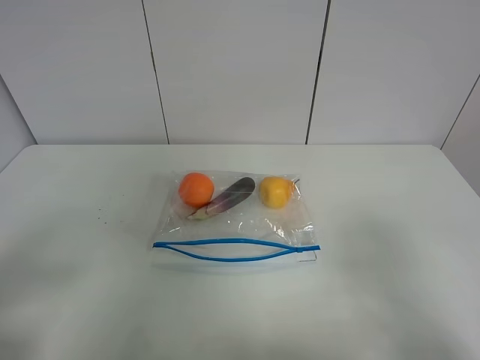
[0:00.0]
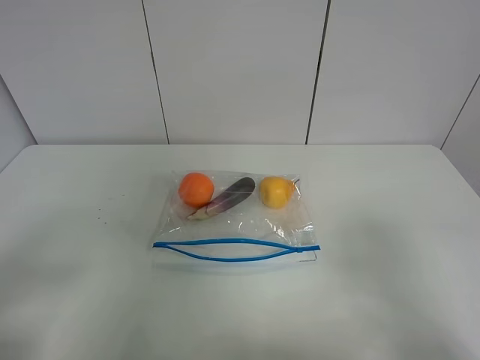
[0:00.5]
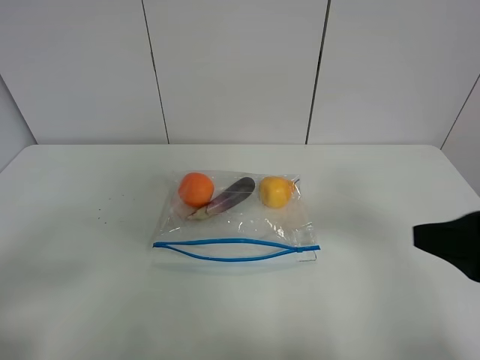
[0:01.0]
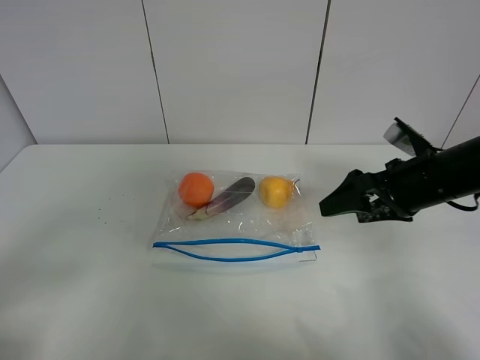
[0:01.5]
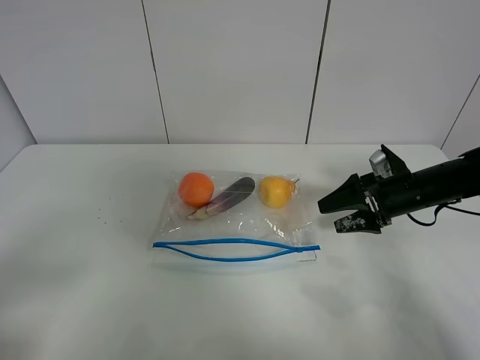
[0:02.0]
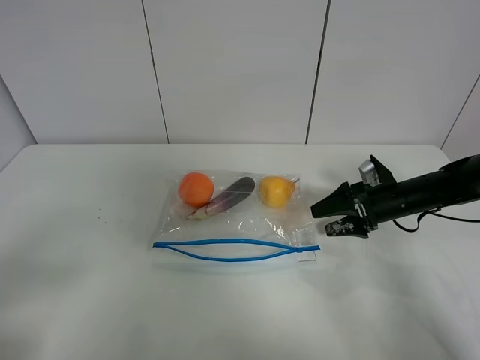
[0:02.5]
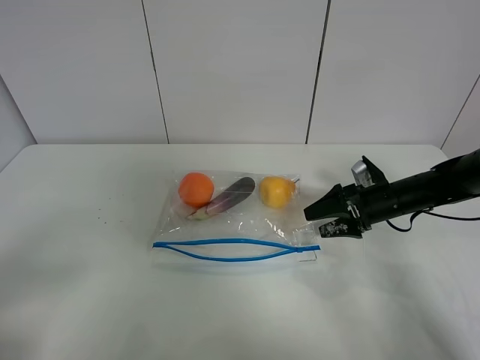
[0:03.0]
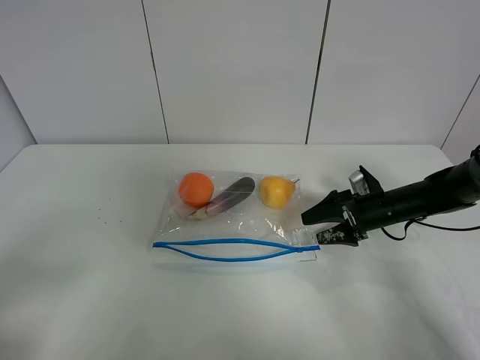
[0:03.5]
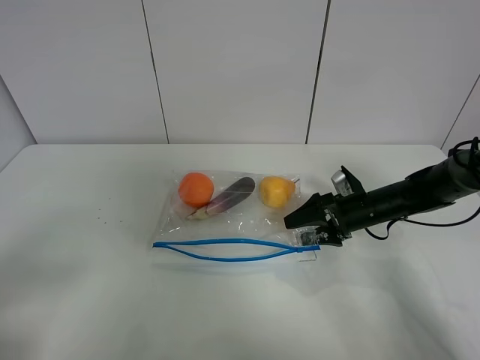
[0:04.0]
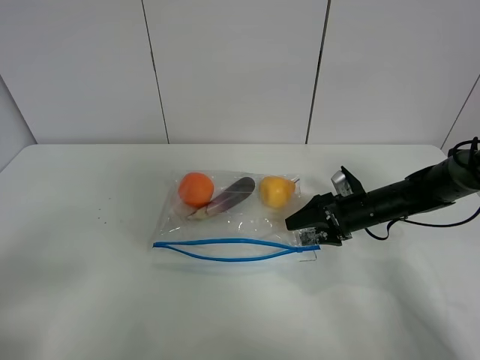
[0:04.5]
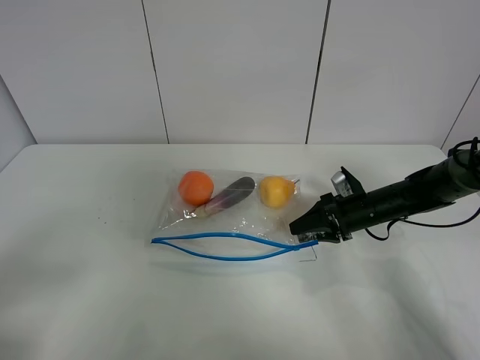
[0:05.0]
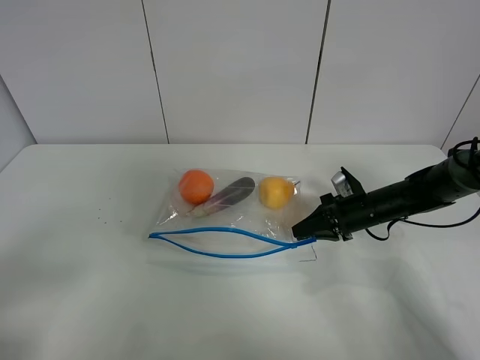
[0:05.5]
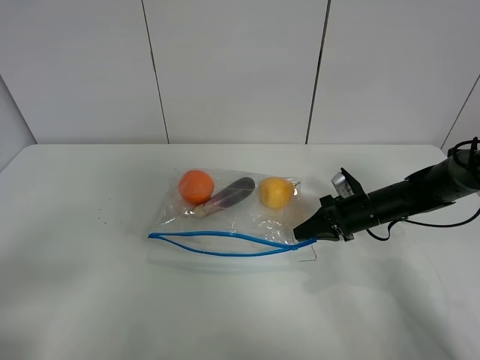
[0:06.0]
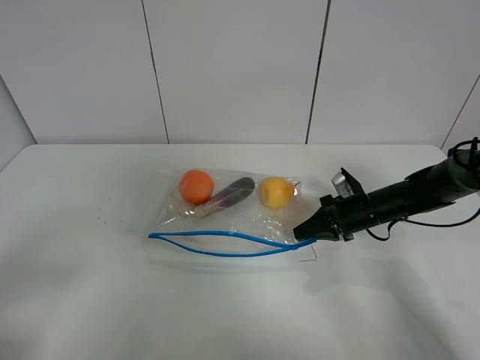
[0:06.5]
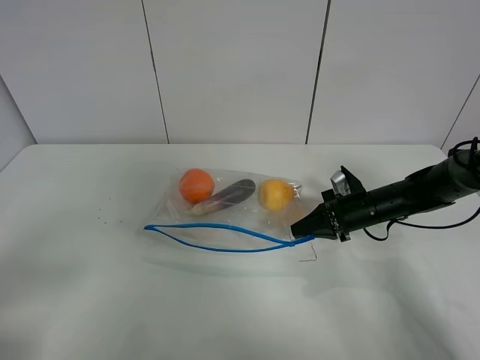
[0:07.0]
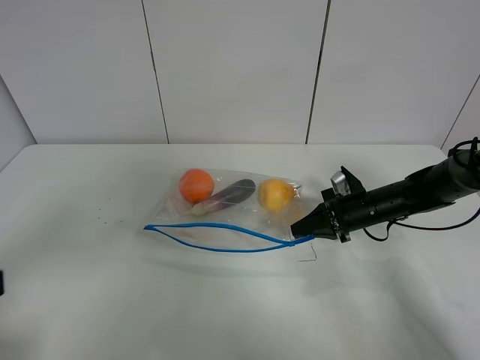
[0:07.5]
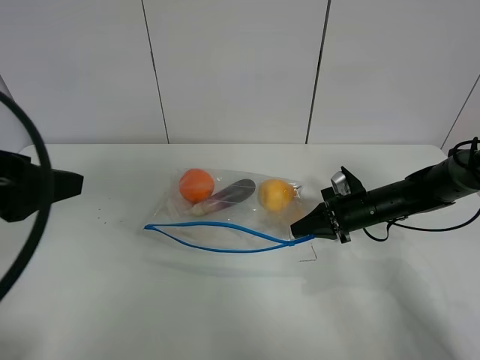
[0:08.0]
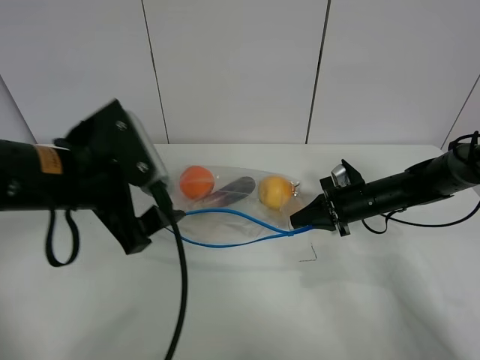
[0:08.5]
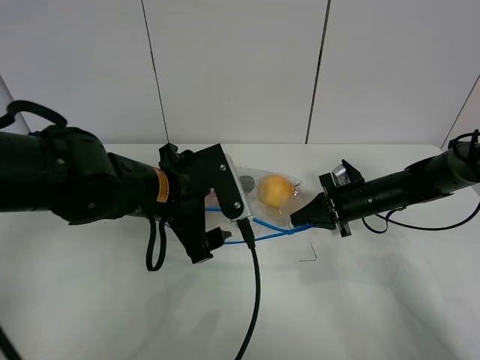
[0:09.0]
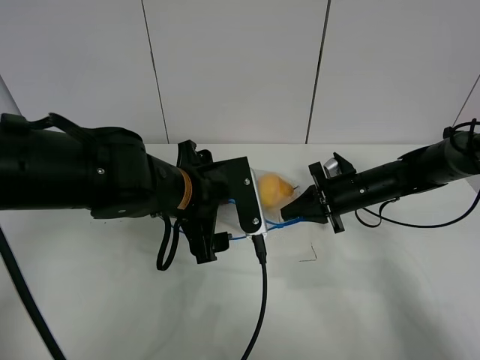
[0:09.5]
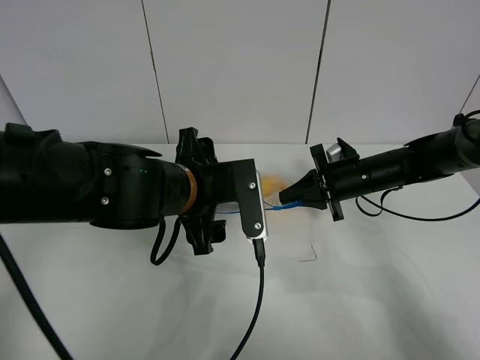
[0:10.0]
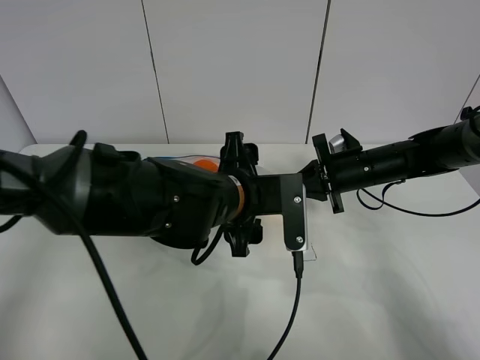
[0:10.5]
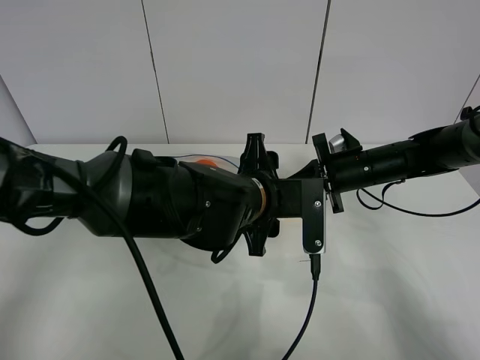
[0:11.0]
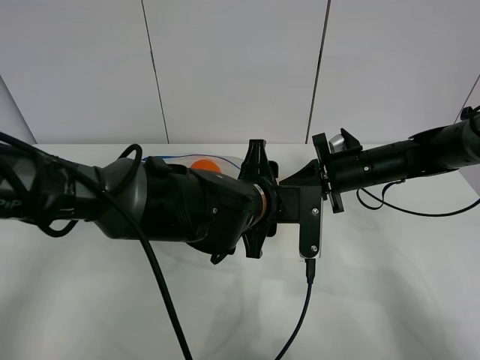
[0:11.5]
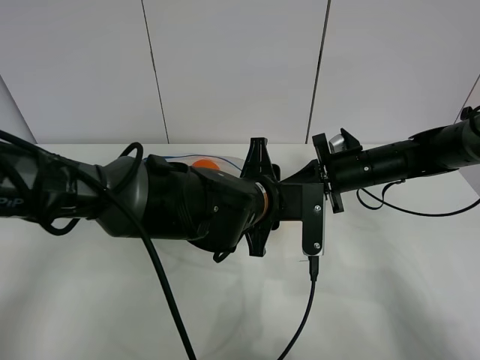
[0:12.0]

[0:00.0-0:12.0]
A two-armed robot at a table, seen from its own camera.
Step, 0:00.0 to 0:05.5: Grasp the fruit bag with right gripper.
Step, 0:06.0 to 0:10.0: Lift the fruit bag with your right gripper.
0:00.0 to 0:02.0: The right gripper heads forward and downward, covering approximately 35 cm.
0:02.0 to 0:04.0: The right gripper heads downward, covering roughly 5 cm.
0:04.0 to 0:06.0: The right gripper closes.
0:06.0 to 0:08.0: The left gripper goes some 15 cm forward.
0:08.0 to 0:10.0: The right gripper heads upward, covering about 5 cm; the left gripper moves to the right and downward, about 25 cm.
0:10.0 to 0:12.0: The left gripper heads to the right, covering roughly 5 cm, and closes.

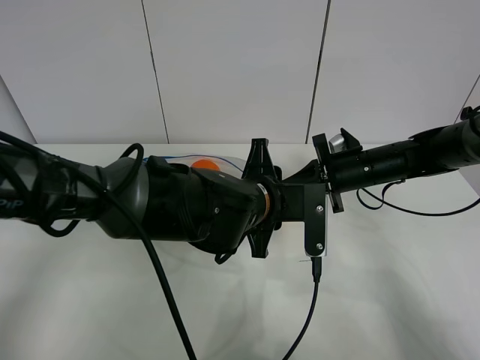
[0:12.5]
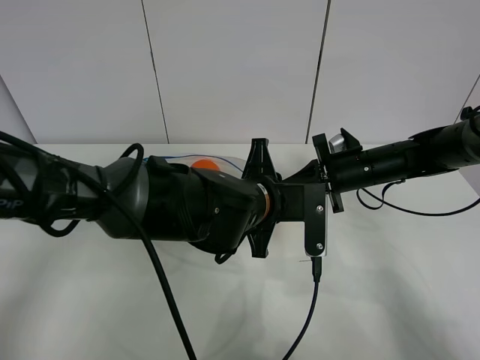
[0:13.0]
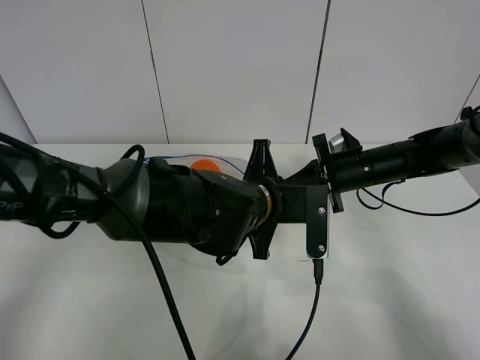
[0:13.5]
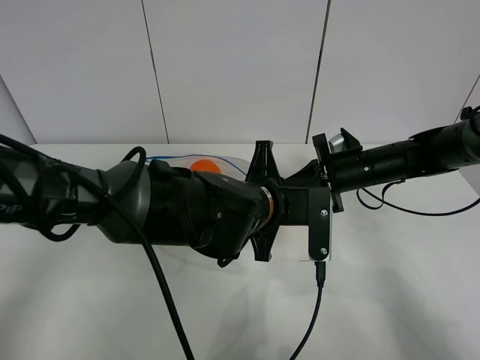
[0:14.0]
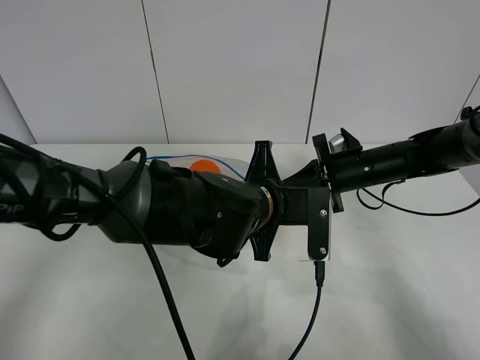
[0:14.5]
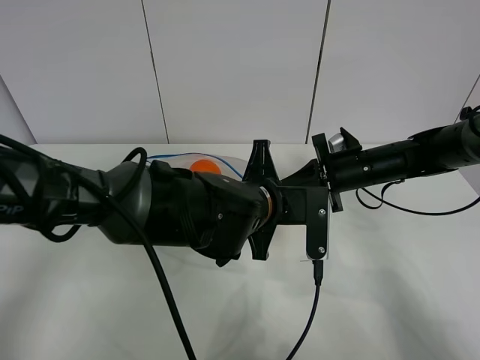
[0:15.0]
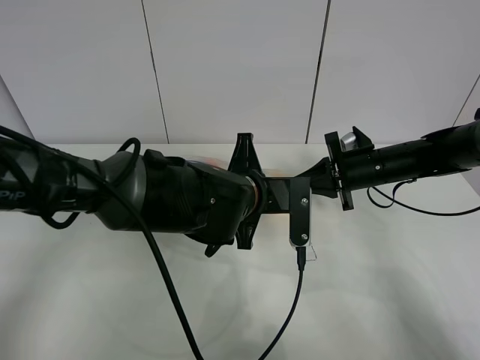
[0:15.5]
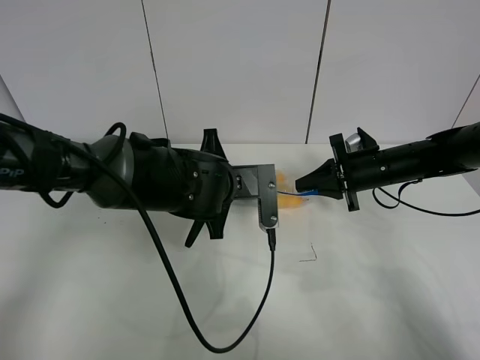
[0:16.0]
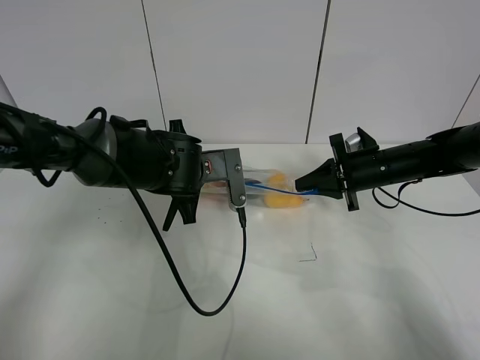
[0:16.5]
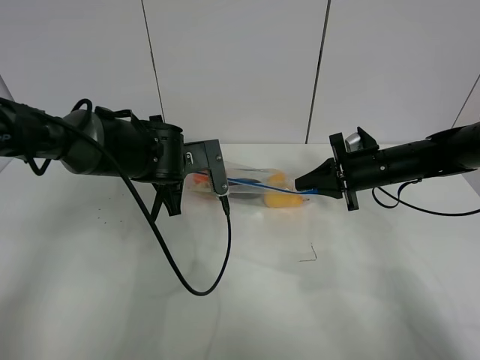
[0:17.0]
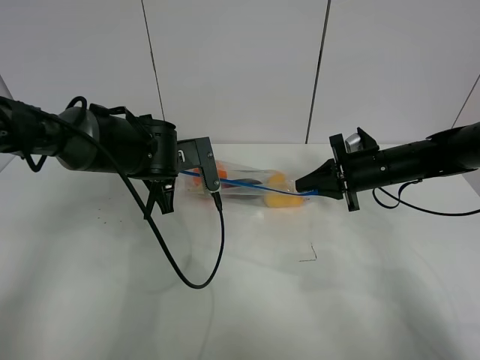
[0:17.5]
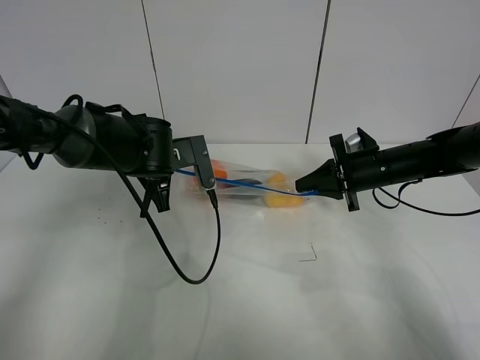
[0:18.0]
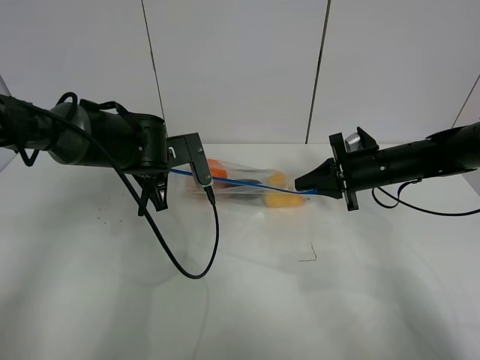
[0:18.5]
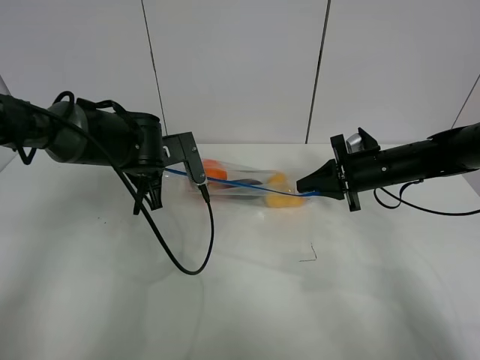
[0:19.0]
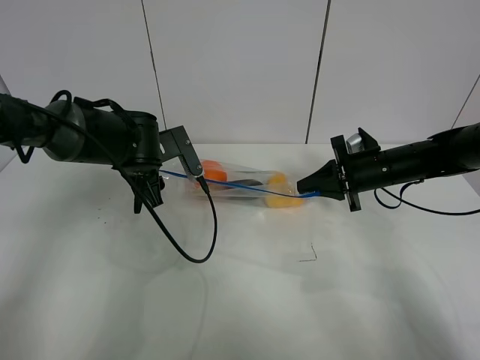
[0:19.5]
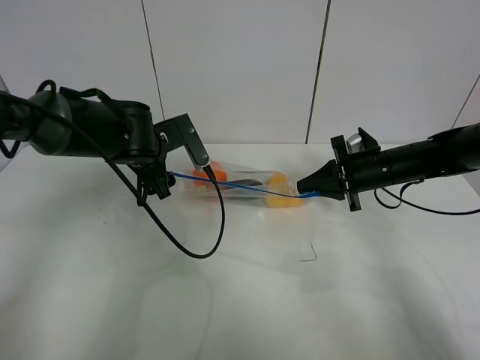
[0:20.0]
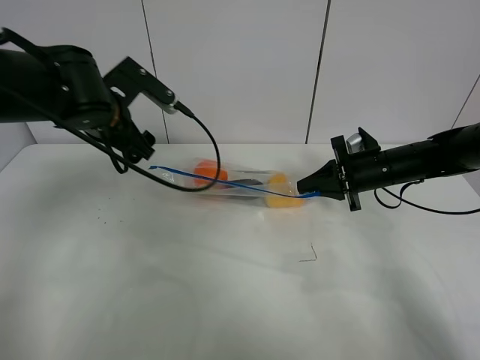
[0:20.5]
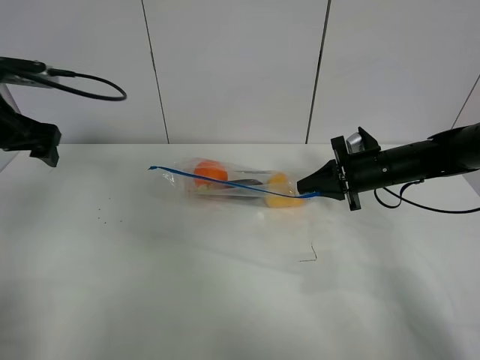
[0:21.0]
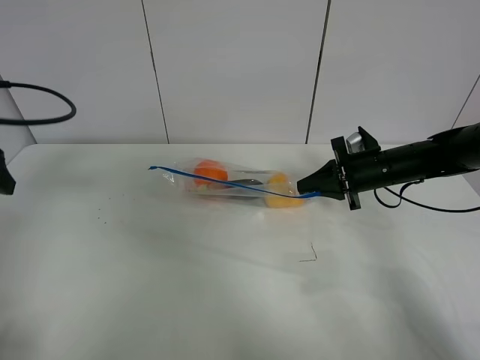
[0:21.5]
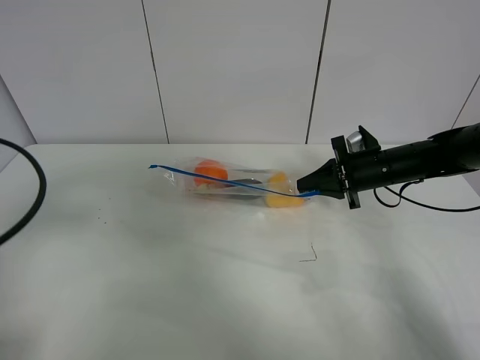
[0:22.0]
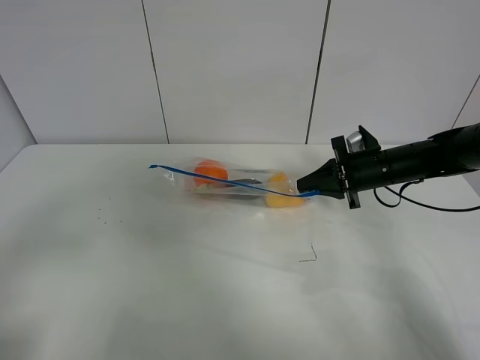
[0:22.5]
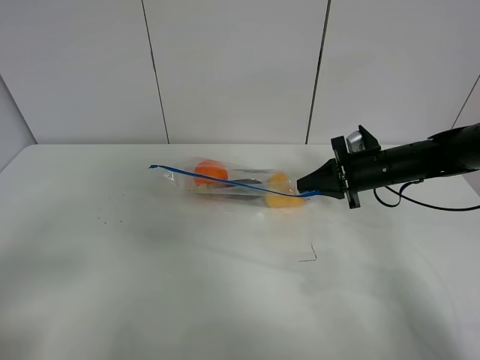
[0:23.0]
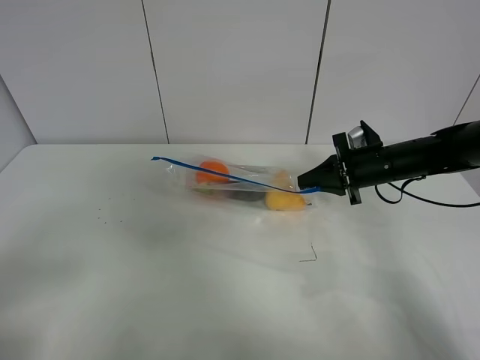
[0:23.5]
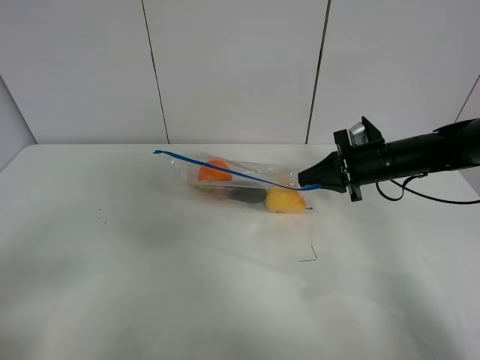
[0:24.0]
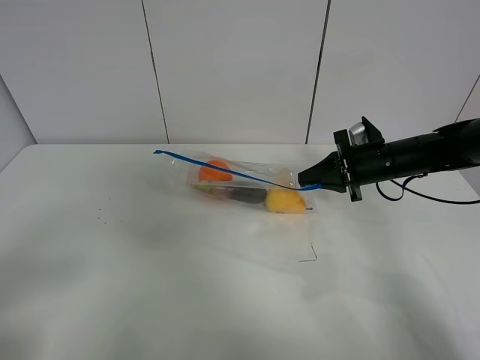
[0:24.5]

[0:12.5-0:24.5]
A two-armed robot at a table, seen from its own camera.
Step, 0:12.5 to 0:20.0: Pull the fruit bag with left gripper.
0:12.5 to 0:14.5: The left gripper closes up.
0:14.5 to 0:16.5: The left gripper heads to the left and forward, covering about 15 cm.
0:16.5 to 0:18.5: The left gripper moves to the left, roughly 5 cm.
0:18.5 to 0:20.5: The left gripper travels upward and to the left by about 10 cm, and opens its fingers.
0:20.5 to 0:22.5: The left gripper heads backward and to the left, covering approximately 30 cm.
0:22.5 to 0:24.5: The left gripper travels backward by some 5 cm.

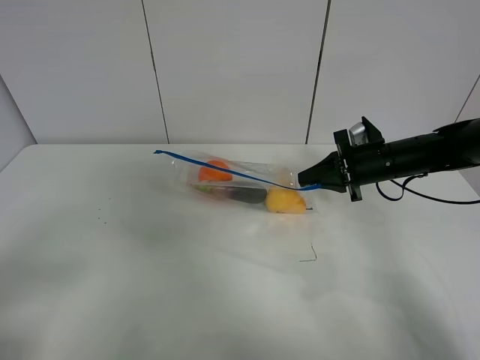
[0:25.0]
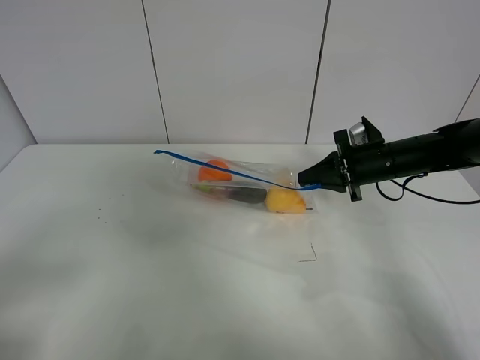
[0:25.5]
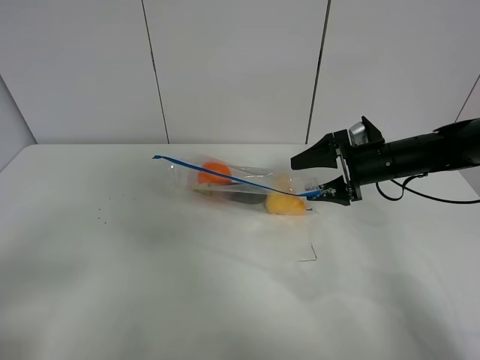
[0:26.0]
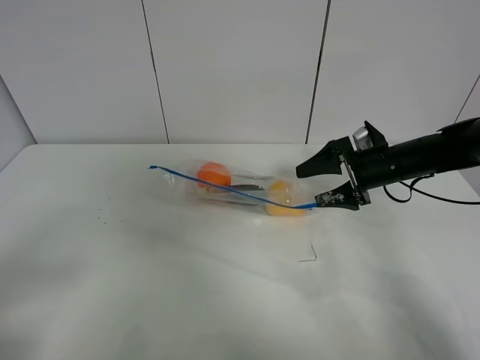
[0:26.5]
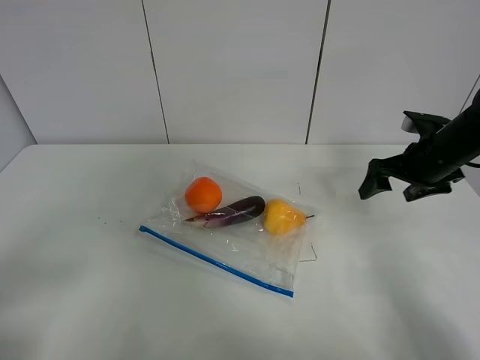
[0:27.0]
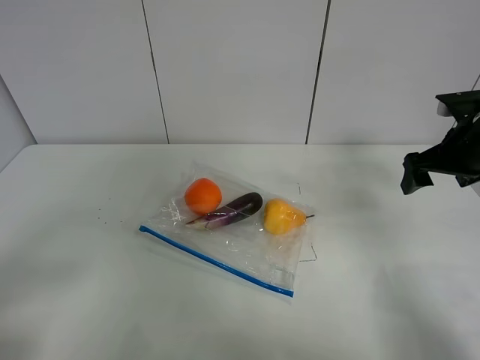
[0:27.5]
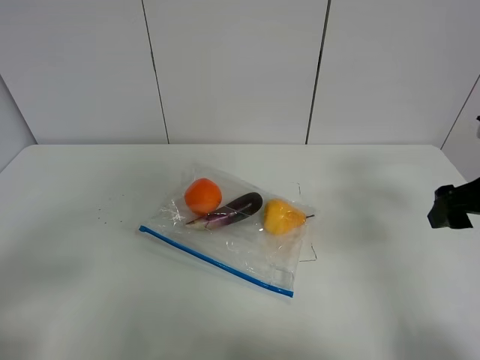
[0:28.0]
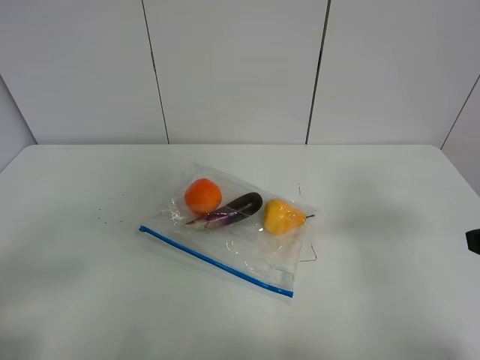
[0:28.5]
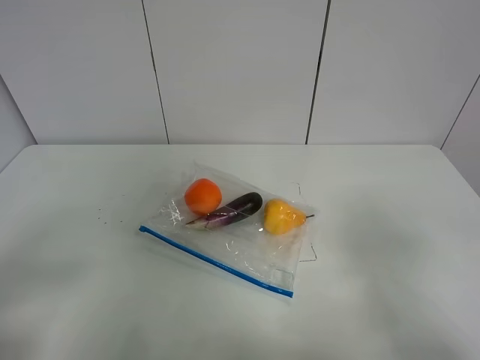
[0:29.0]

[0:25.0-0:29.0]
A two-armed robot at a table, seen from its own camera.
0:25.0 to 0:27.0: The right gripper travels to the right by some 5 cm, and opens up.
0:27.0 to 0:29.0: The right gripper goes some 30 cm backward.
